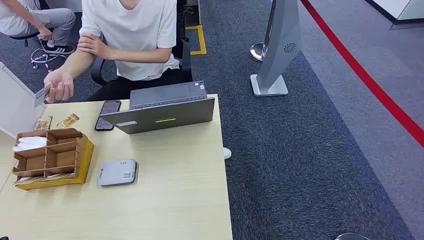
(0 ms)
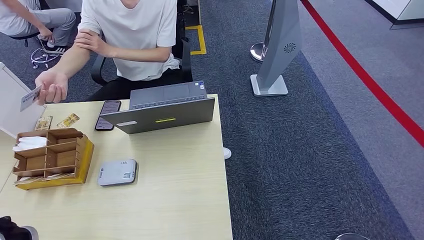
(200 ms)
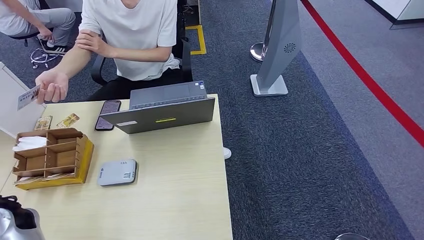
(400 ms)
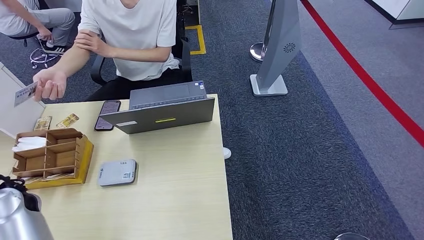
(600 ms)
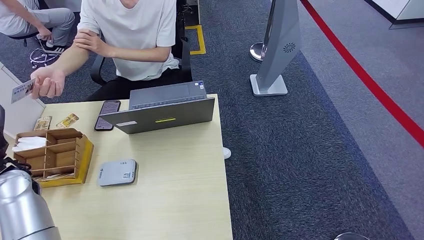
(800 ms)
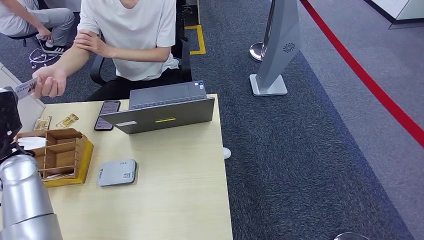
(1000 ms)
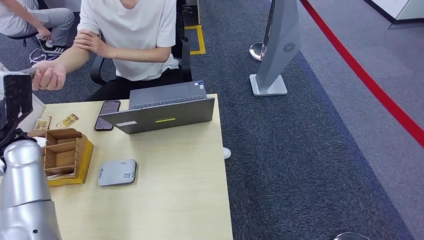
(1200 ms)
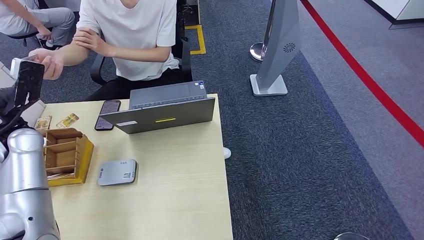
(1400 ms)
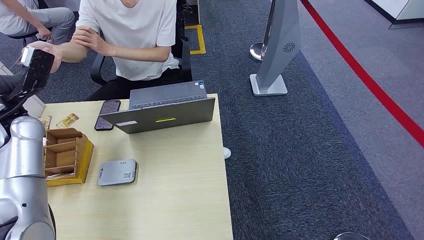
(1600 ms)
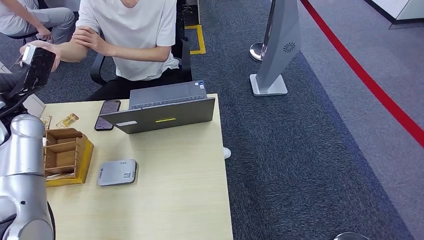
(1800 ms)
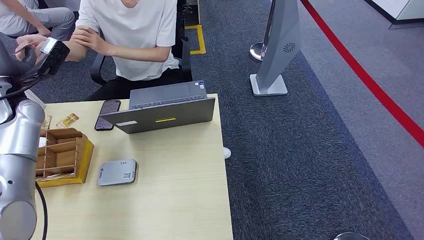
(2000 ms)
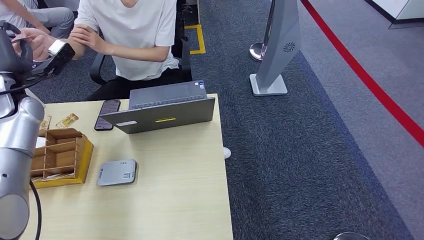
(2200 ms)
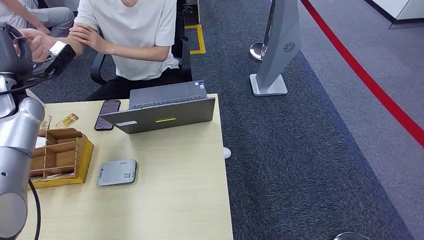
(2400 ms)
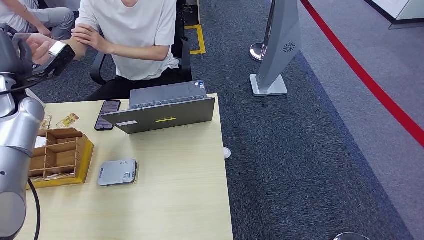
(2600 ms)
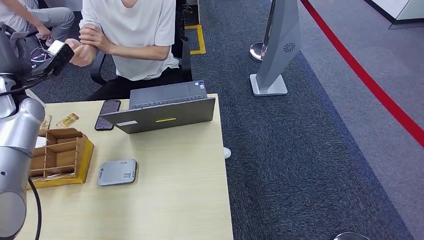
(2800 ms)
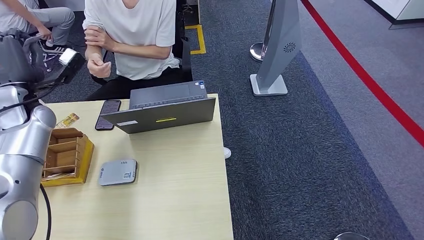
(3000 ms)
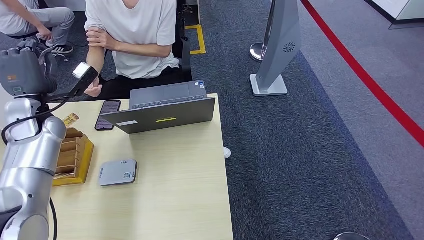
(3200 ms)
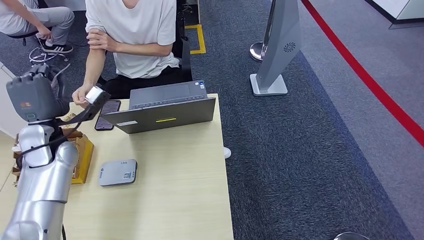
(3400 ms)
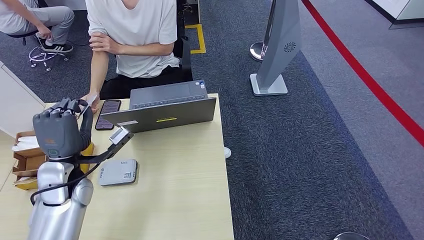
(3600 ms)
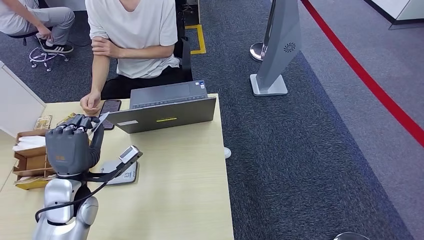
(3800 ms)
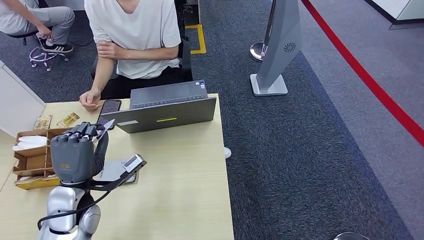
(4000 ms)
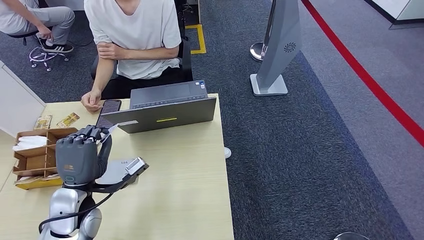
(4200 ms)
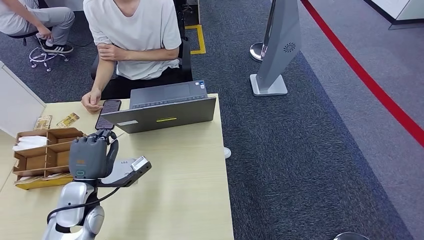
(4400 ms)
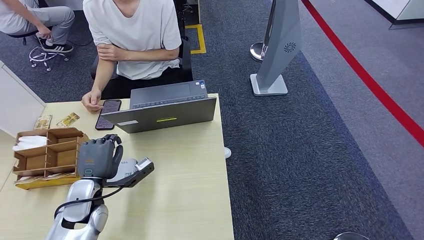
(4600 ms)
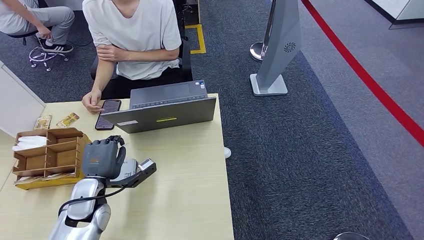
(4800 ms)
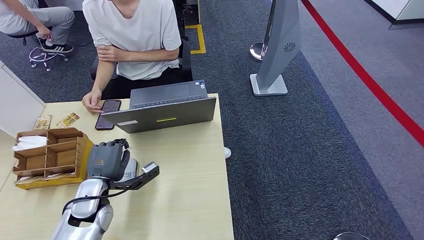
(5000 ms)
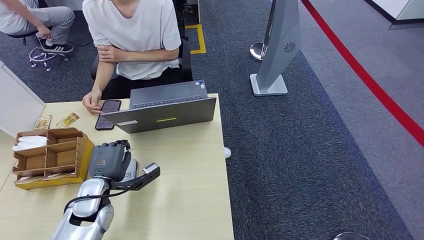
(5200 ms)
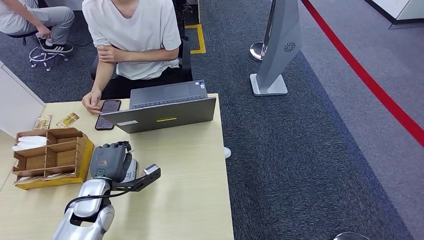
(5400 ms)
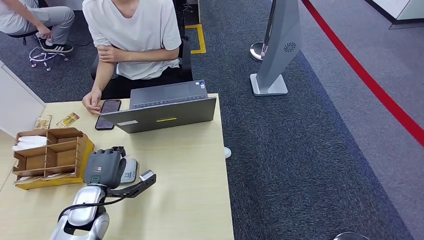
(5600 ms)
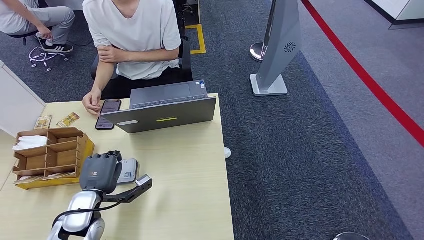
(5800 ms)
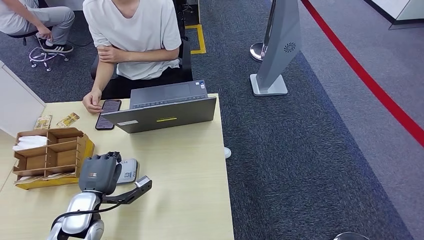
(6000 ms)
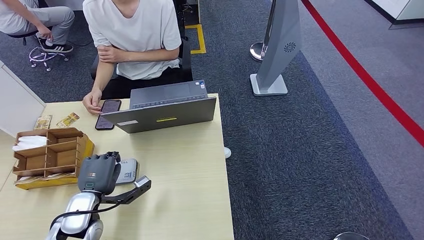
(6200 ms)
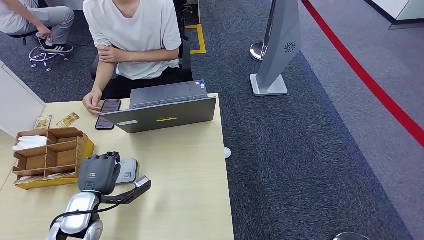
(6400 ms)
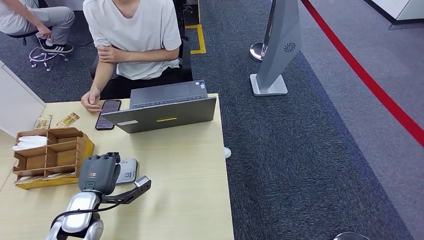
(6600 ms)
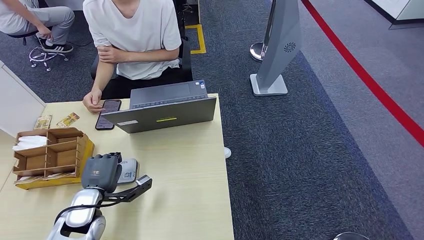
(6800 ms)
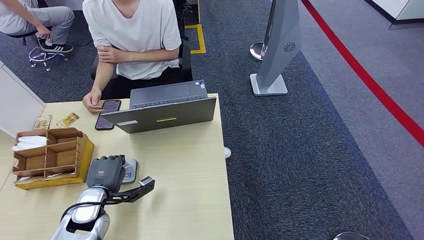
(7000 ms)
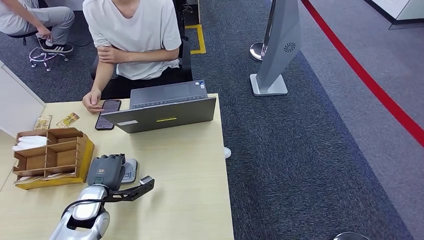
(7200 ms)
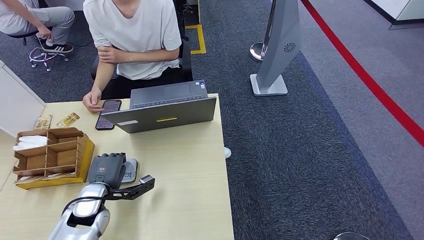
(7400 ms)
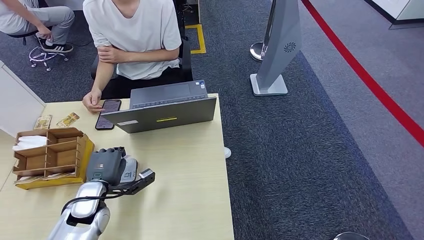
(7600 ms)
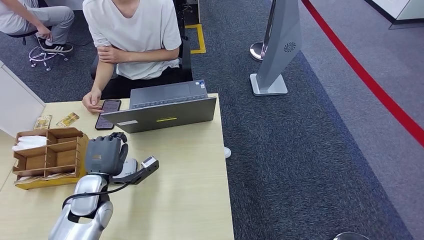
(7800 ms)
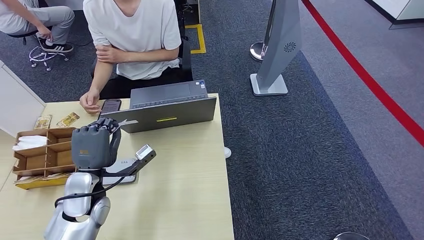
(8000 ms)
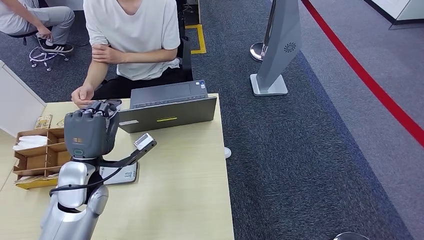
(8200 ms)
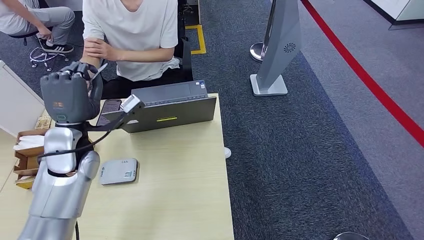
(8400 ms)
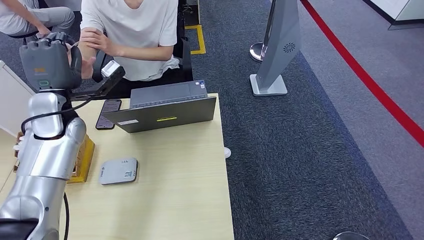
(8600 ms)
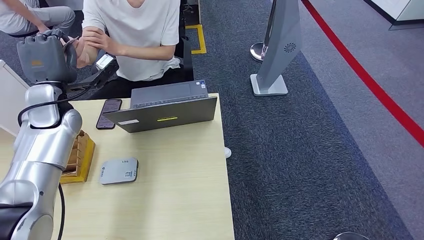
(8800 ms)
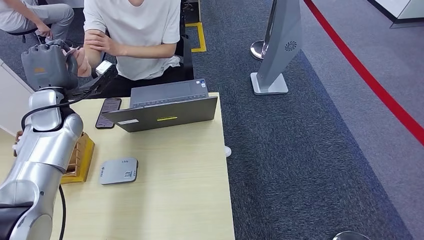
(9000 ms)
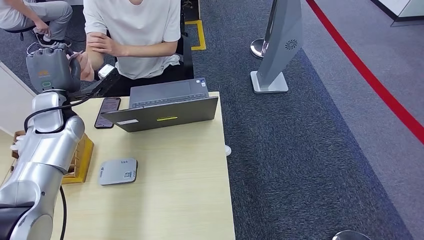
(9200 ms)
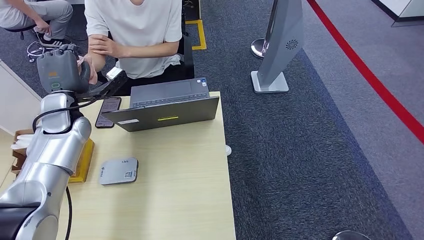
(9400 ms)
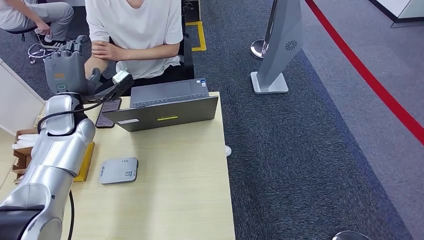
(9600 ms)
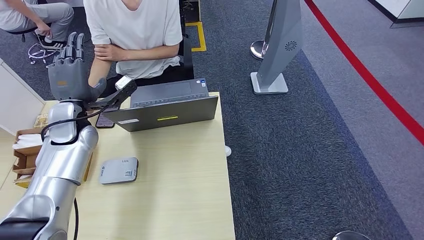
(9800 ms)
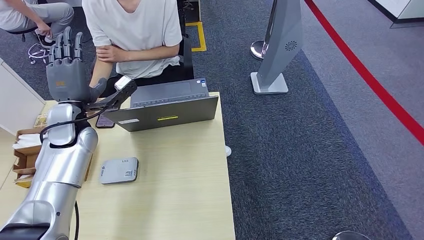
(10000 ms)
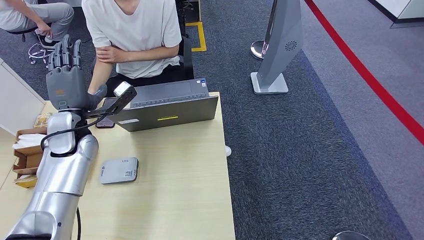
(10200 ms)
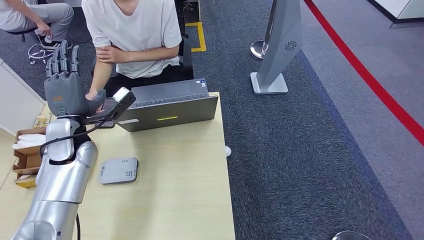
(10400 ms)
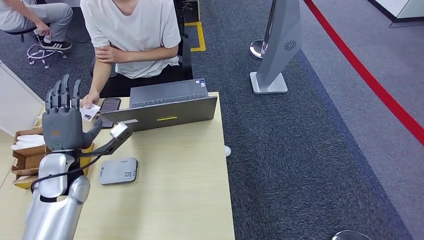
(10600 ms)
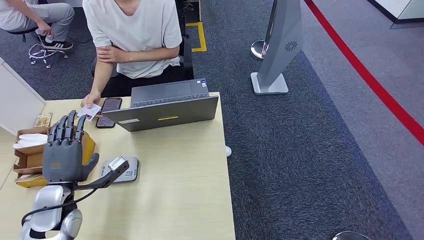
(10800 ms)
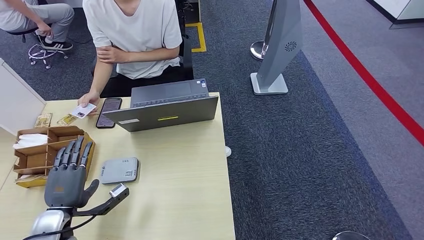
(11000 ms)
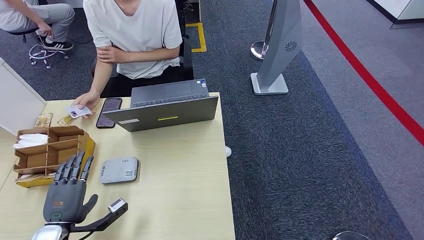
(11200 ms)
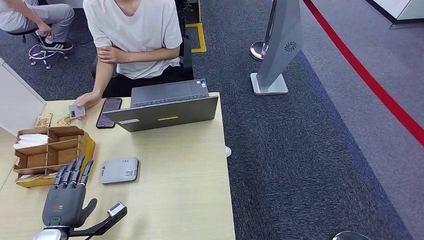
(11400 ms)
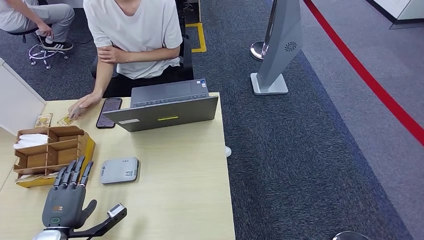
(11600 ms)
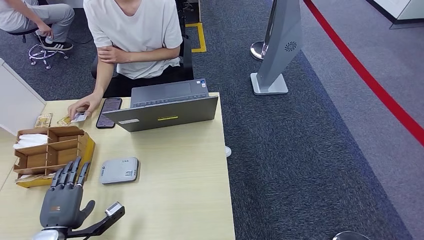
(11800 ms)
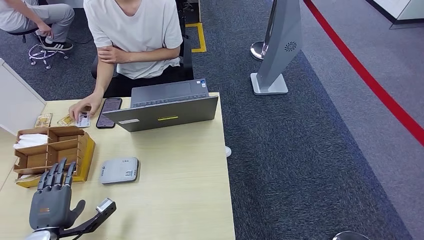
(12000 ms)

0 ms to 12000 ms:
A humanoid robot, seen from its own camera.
Step, 0 ms to 3200 ms: Take the ID card from the person's hand.
Step, 3400 ms to 8000 ms: Place the ID card on the card reader.
Step, 8200 ms to 11400 ms: Hand the ID card to the person.
3000 ms to 4400 ms: The left hand goes some 25 cm backward, downward and to the right.
4400 ms to 6000 ms: The left hand goes roughly 5 cm downward.
6000 ms to 7600 ms: The hands stay close to where they were, moving slightly.
9000 ms to 10400 ms: The left hand is displaced backward by approximately 5 cm.
10400 ms to 12000 ms: The left hand is displaced backward, downward and to the left by approximately 30 cm.

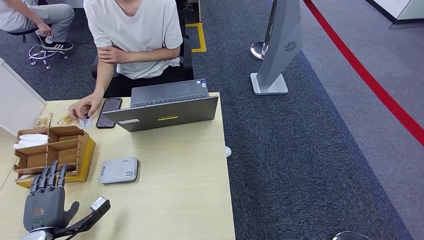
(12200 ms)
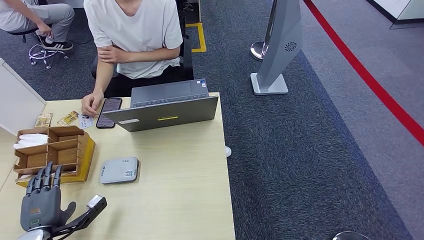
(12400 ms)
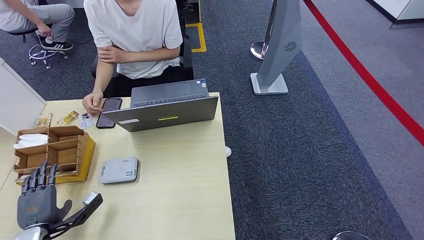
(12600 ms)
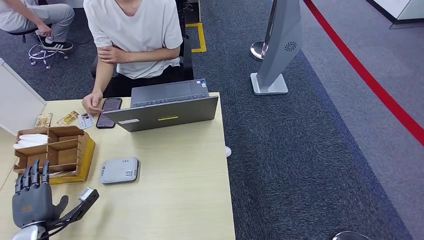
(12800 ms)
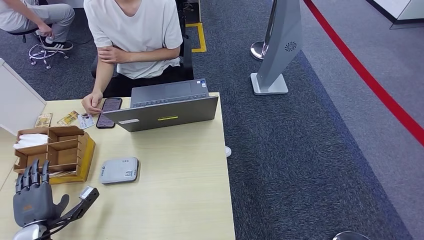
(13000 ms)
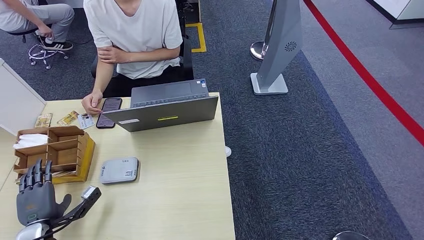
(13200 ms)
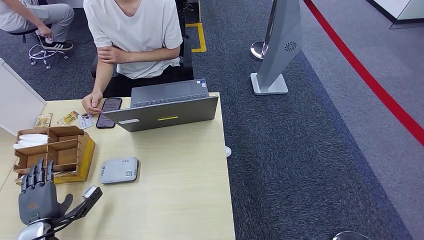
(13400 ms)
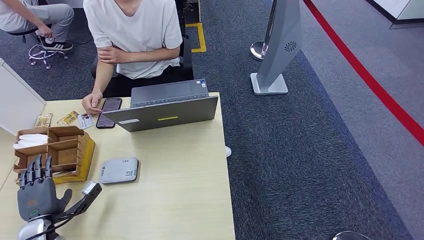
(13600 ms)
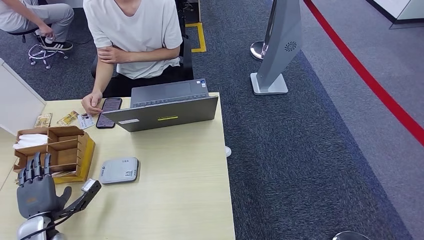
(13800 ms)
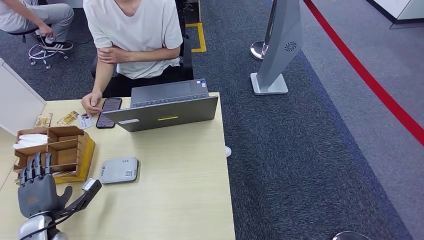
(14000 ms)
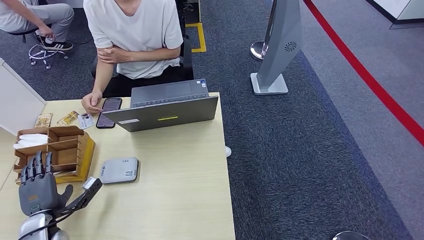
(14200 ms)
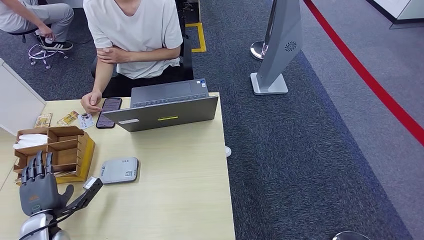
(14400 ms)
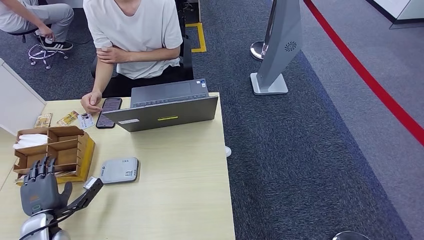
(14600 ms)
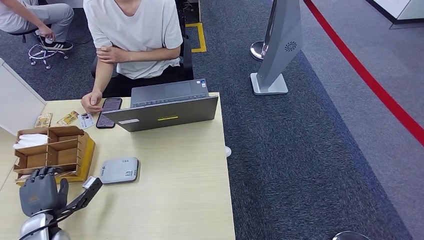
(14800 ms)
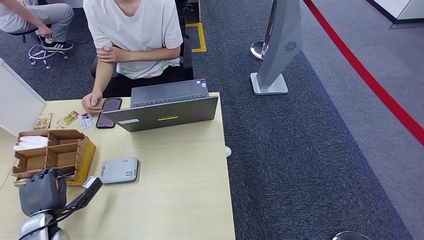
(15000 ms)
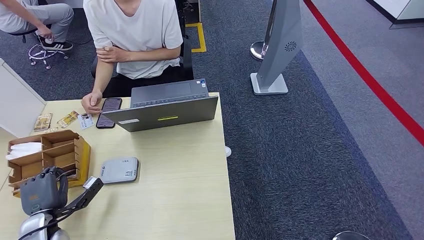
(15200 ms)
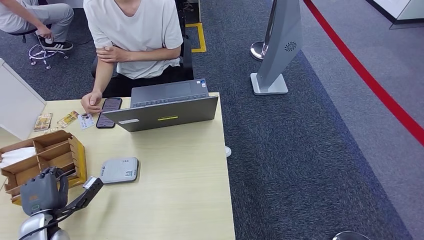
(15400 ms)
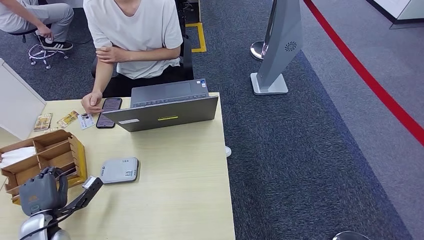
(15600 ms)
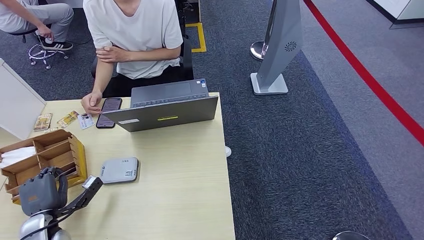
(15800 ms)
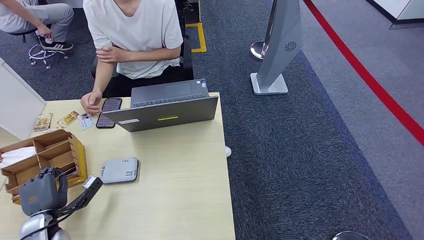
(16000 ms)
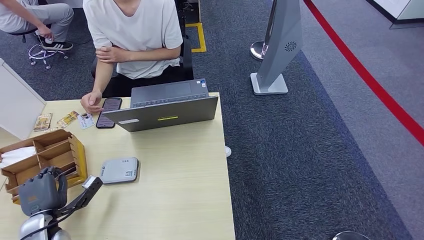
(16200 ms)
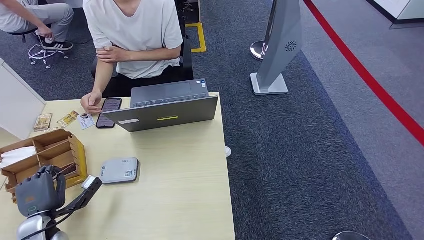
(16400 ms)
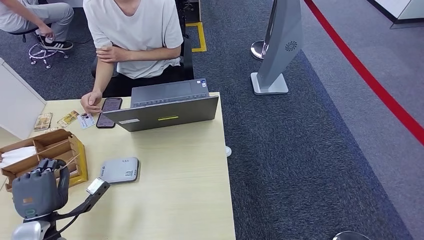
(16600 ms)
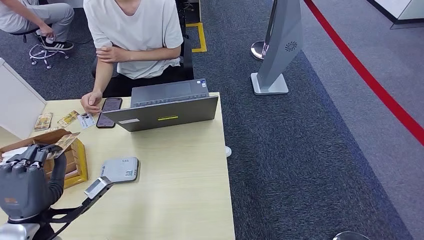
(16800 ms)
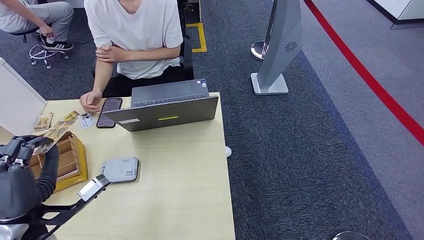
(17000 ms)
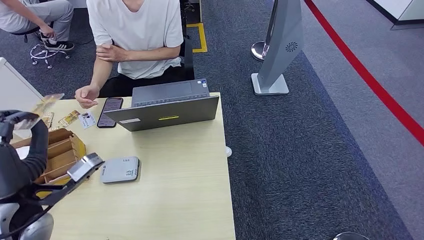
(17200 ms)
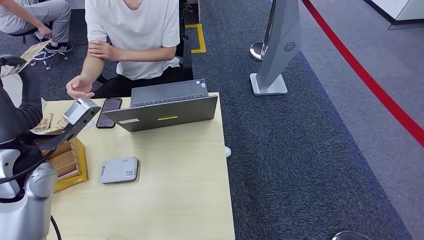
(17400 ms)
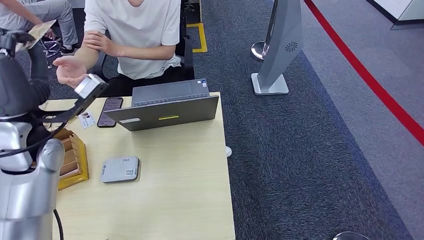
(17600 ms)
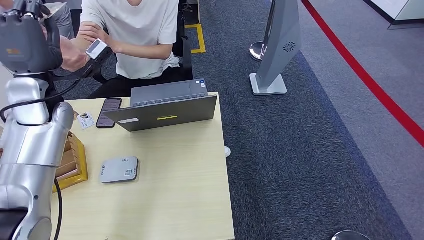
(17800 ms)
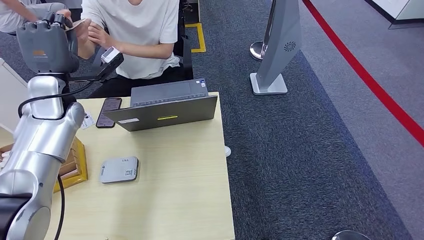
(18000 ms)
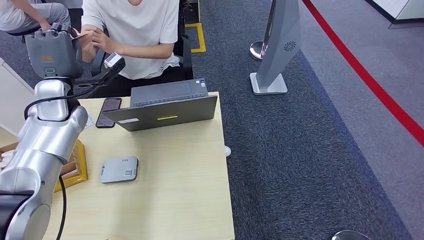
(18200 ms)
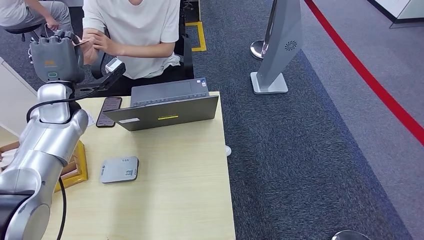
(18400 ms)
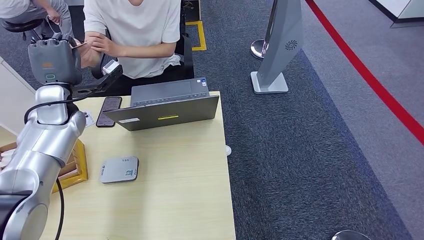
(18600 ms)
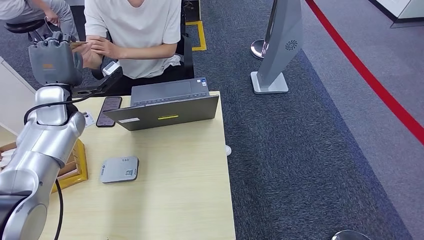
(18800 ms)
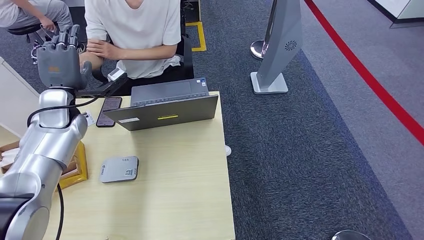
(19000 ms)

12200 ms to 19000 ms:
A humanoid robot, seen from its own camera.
Step, 12200 ms to 17600 ms: Pick up the room key from the key card box.
12200 ms to 13600 ms: The left hand shifts by about 5 cm.
13600 ms to 16200 ms: Neither hand changes place.
17600 ms to 19000 ms: The left hand moves forward and downward, some 15 cm.
